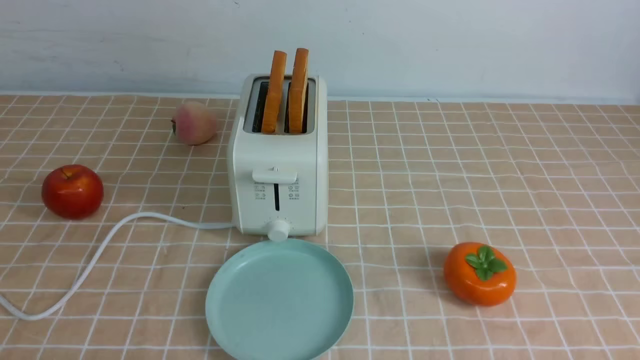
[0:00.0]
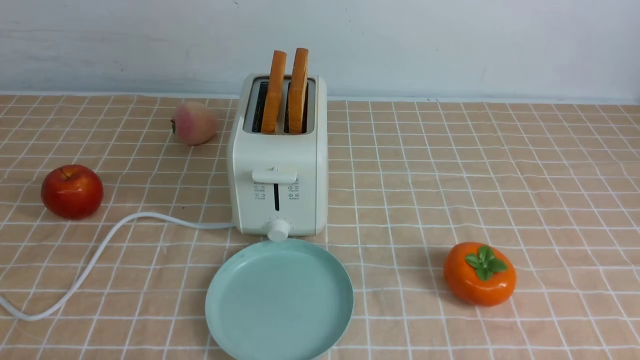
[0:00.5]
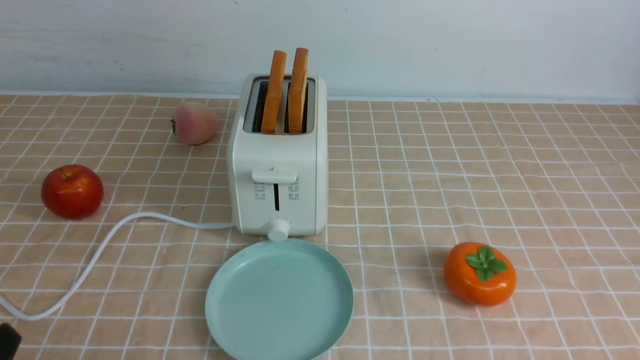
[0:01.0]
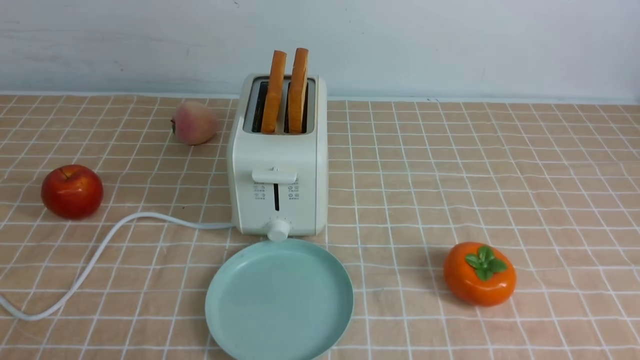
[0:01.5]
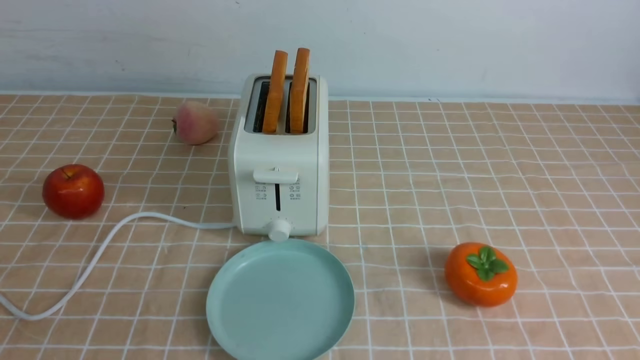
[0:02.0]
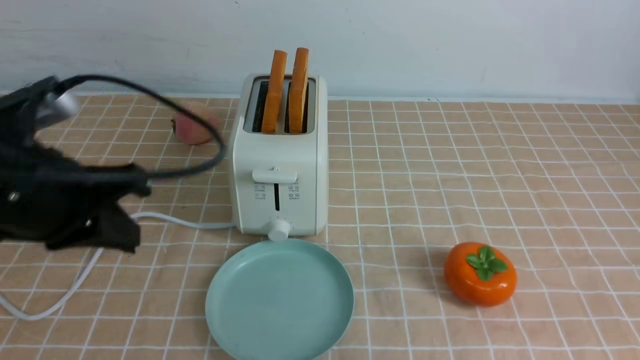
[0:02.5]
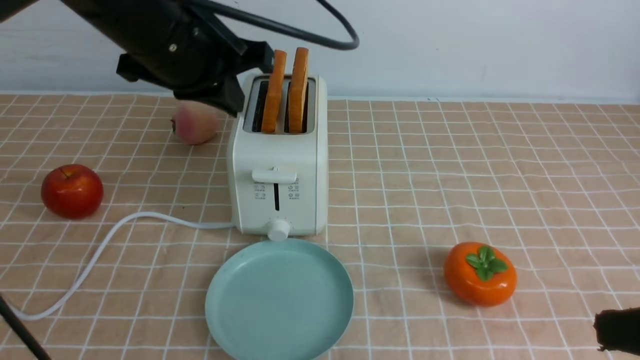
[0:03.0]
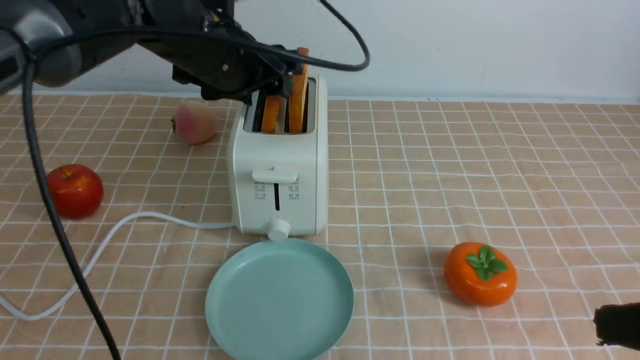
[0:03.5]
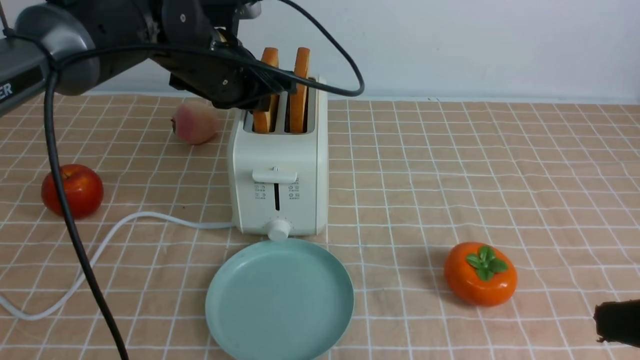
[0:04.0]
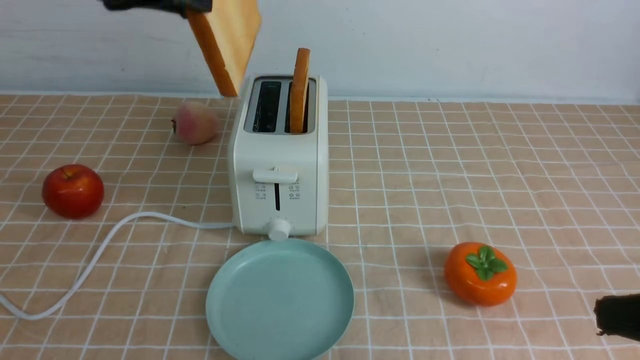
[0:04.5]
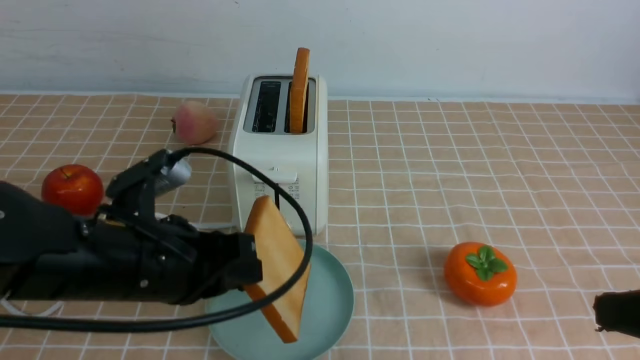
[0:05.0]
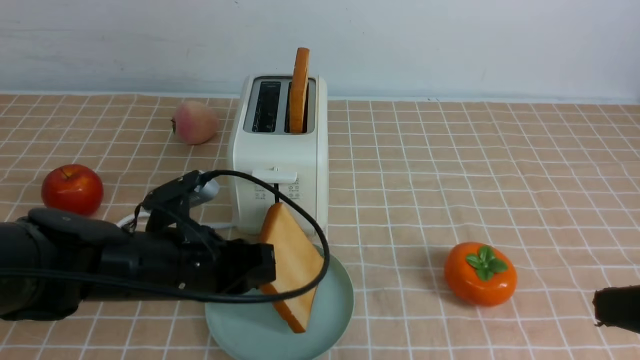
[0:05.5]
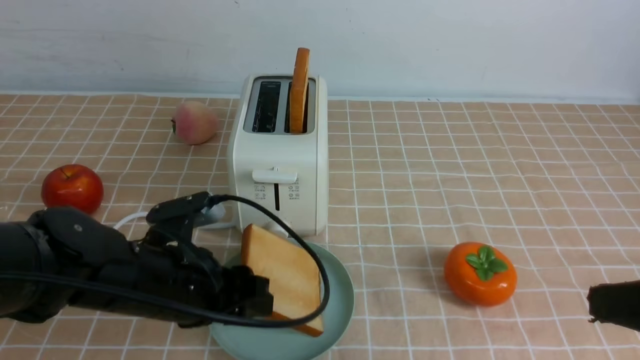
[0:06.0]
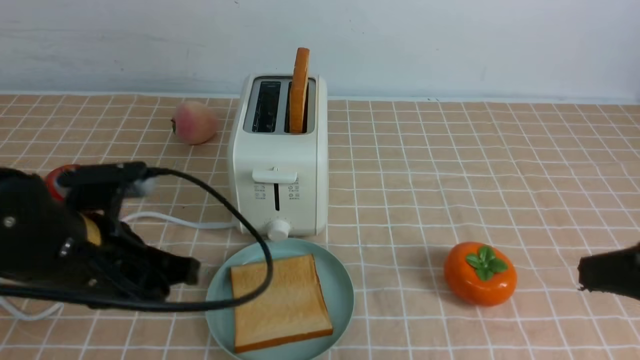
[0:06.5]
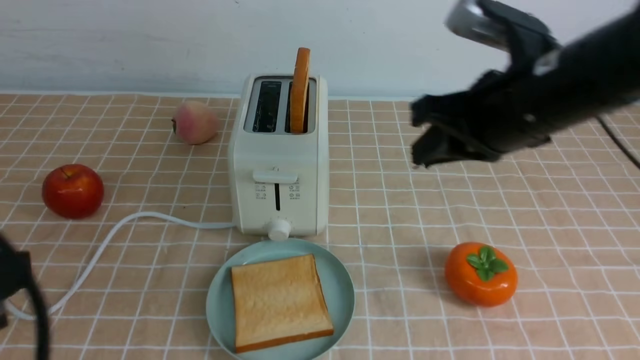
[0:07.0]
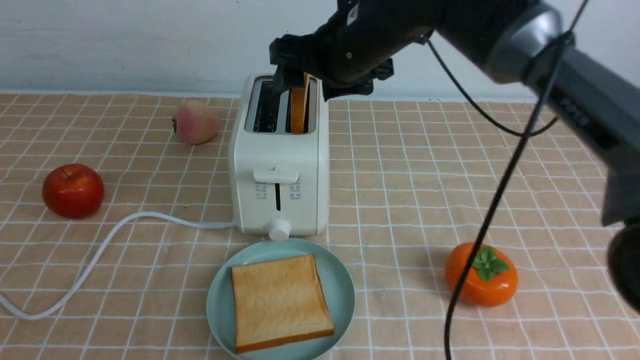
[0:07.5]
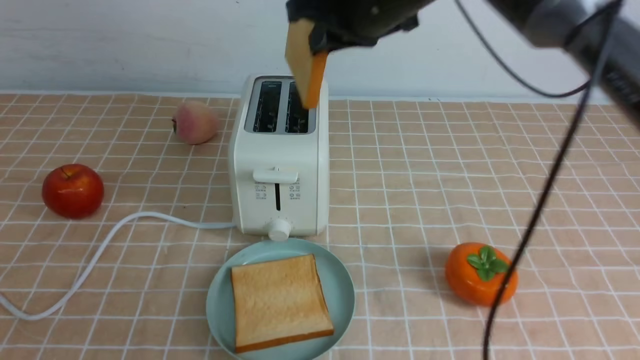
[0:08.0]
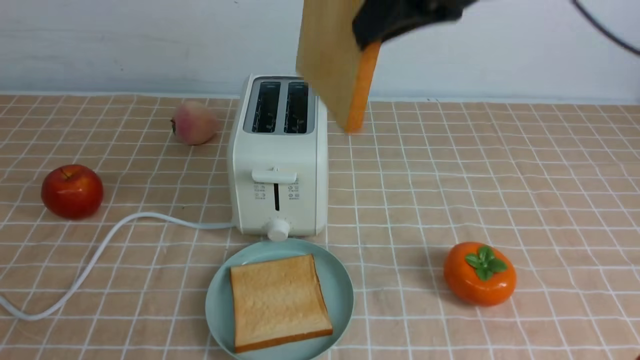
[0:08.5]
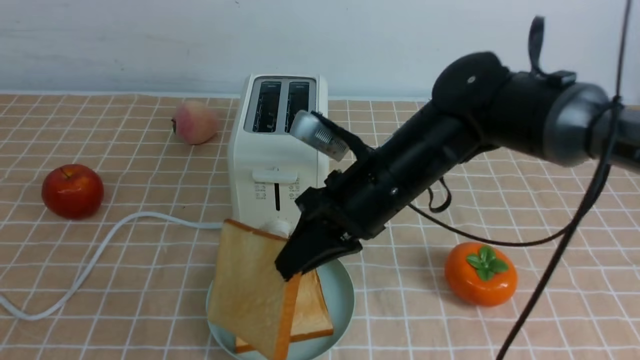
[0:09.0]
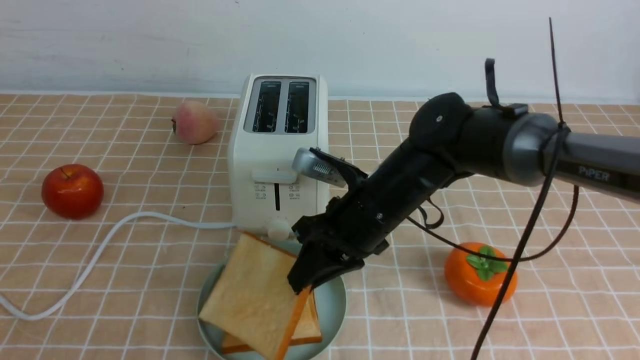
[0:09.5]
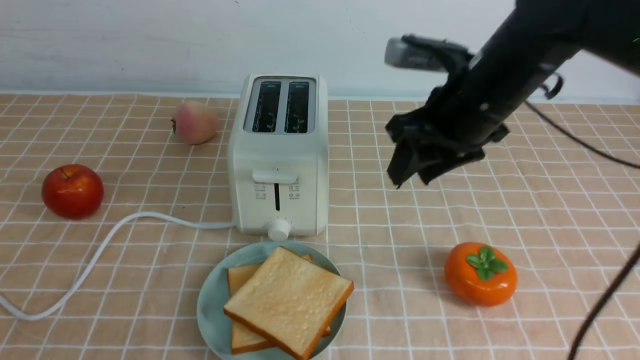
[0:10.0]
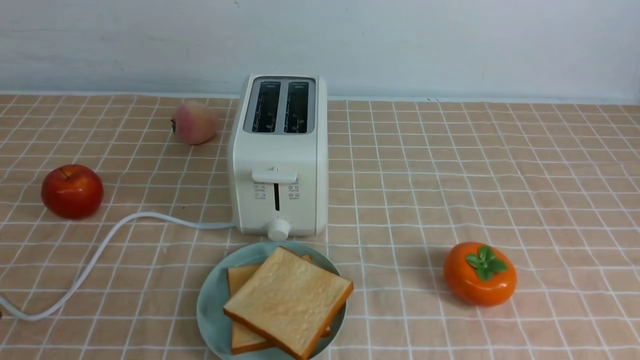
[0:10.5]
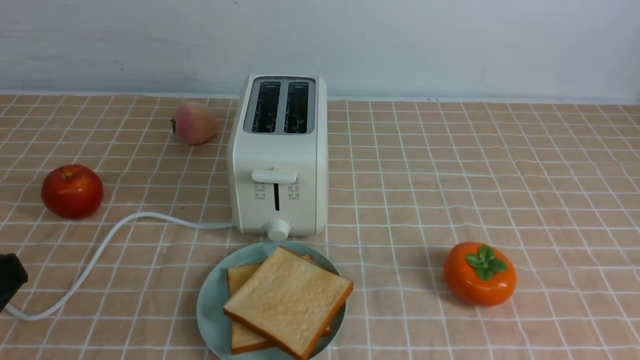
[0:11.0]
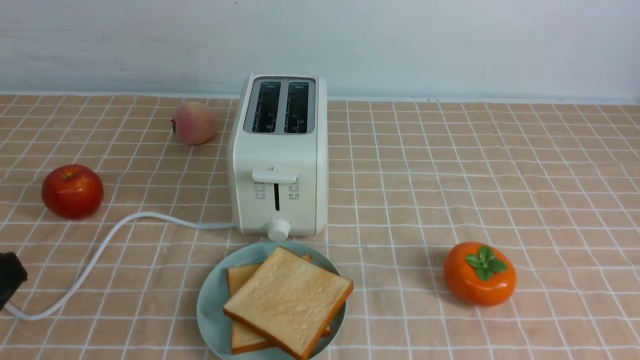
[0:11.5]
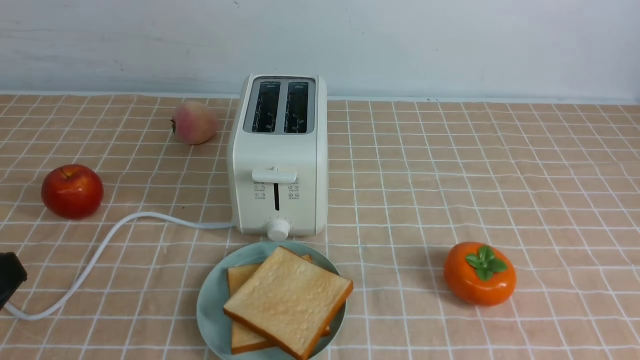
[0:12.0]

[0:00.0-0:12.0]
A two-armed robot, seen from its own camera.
Task of the whole recording: take toasted bread from bread machine on light coffee tablecloth place on plate.
Step, 0:00.0 to 0:04.0: use the left arm to take out a slice of bread.
Step, 0:04.5 to 0:06.0: use the left arm to put a slice of bread into the empty plate.
Step, 0:06.5 to 0:07.5: use the right arm to take out a slice of bread.
Step, 0:08.0 to 0:09.5: use the right arm to put a slice of bread into the plate.
0:02.0 to 0:04.0: The right gripper moves forward and upward, some 10 cm, and closes its fingers; the left gripper goes approximately 35 cm forward, and opens its fingers.
0:04.0 to 0:06.0: The left gripper travels backward and downward by roughly 20 cm, and opens its fingers.
0:06.0 to 0:08.0: The right gripper moves forward and to the left, roughly 35 cm, and opens, then closes once more. Meanwhile the left gripper goes some 30 cm backward, upward and to the left, and closes up.
0:08.0 to 0:10.0: The right gripper swings up and down, some 25 cm each way, with 2 reversals, and opens its fingers.
0:10.0 to 0:12.0: The right gripper goes about 35 cm backward and to the right, and closes its fingers.

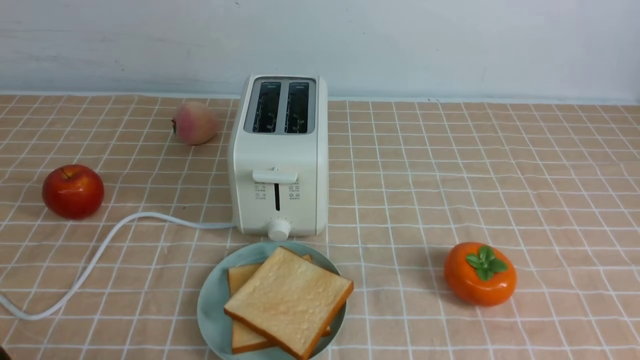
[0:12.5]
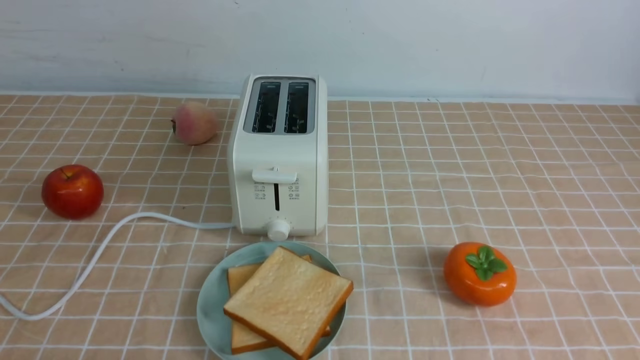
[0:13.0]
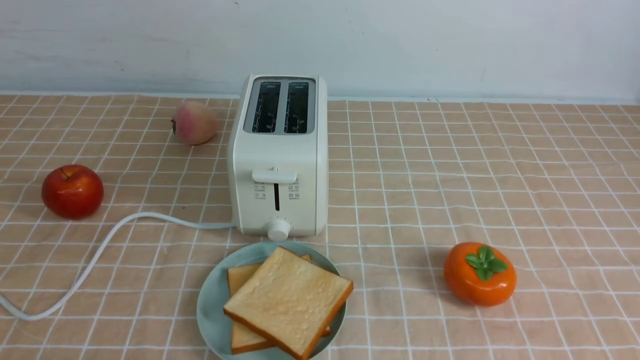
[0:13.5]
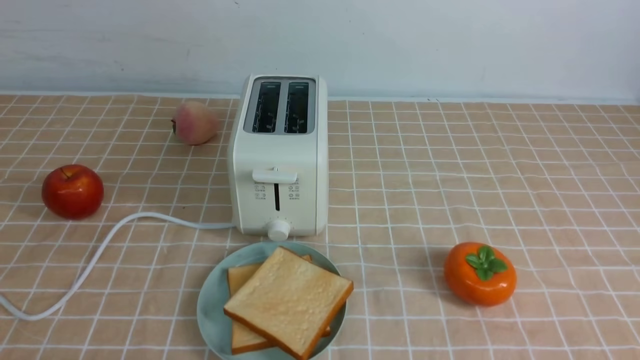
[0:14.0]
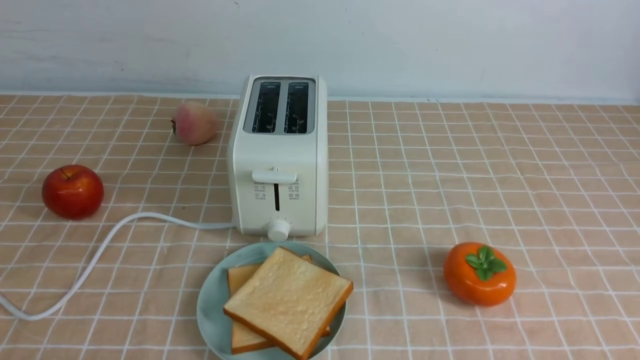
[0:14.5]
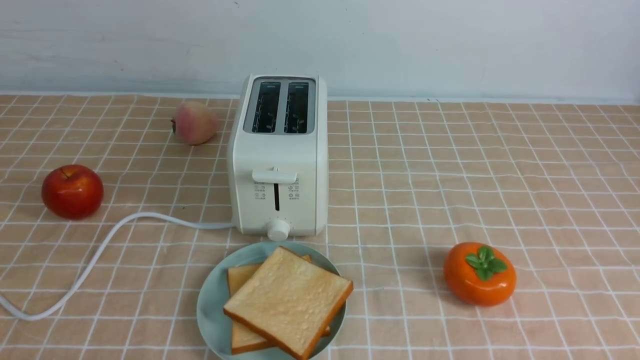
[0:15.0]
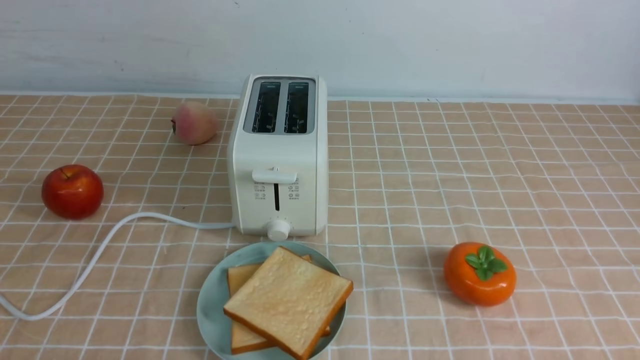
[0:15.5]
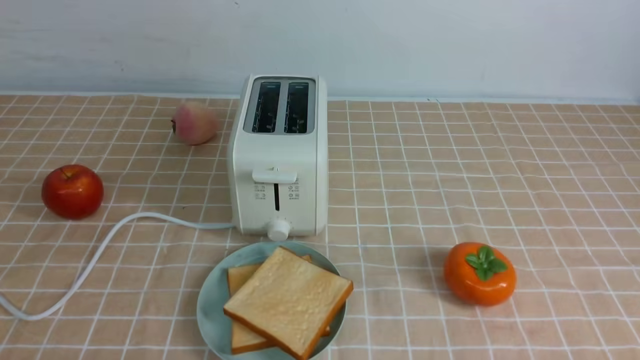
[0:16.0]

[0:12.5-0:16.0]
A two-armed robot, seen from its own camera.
Task of the whole recording: take toasted bread from bread machine on light coffee tablecloth place on plate.
0:14.5 to 0:16.0: The two grippers keep their place.

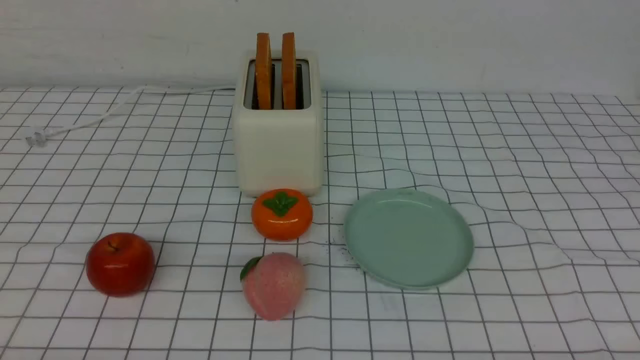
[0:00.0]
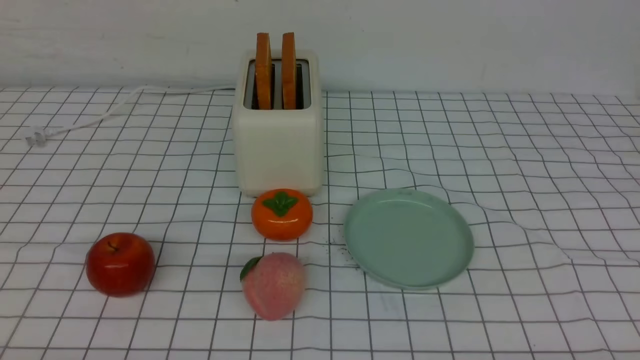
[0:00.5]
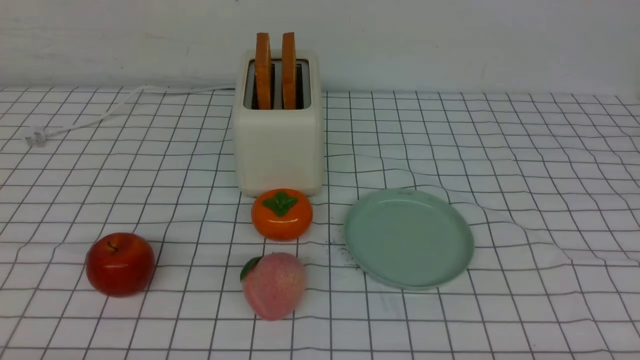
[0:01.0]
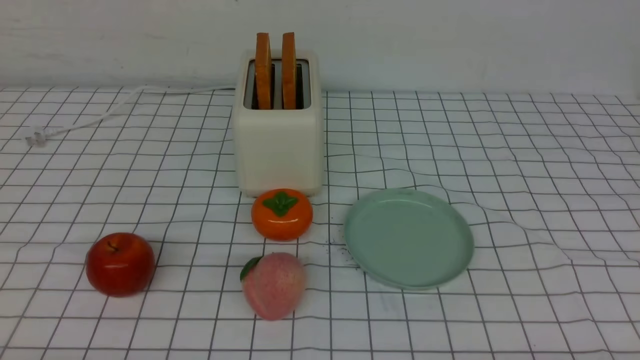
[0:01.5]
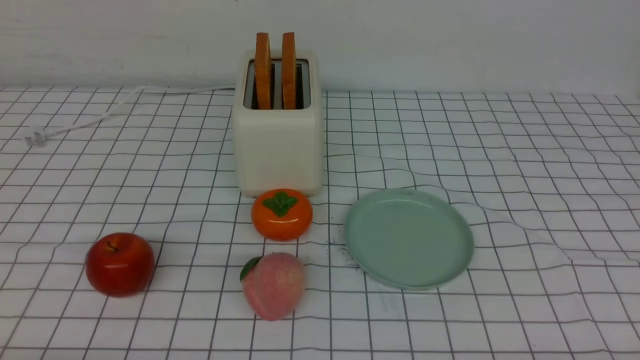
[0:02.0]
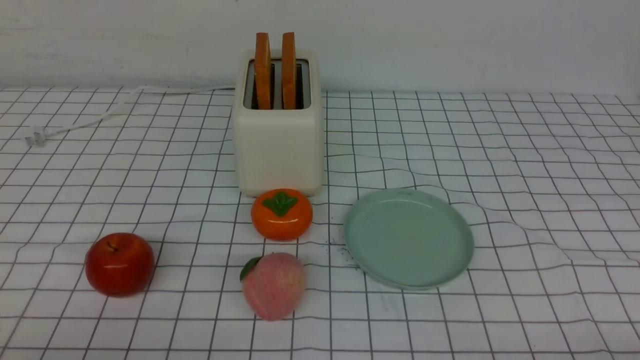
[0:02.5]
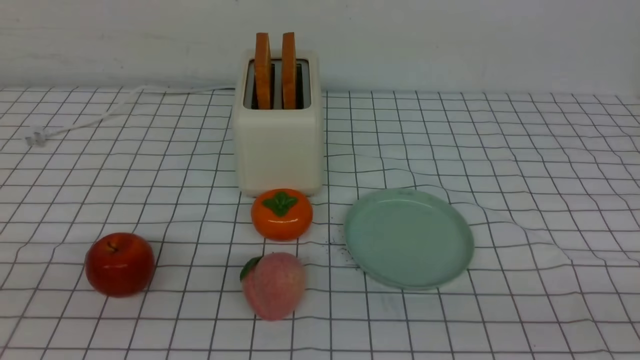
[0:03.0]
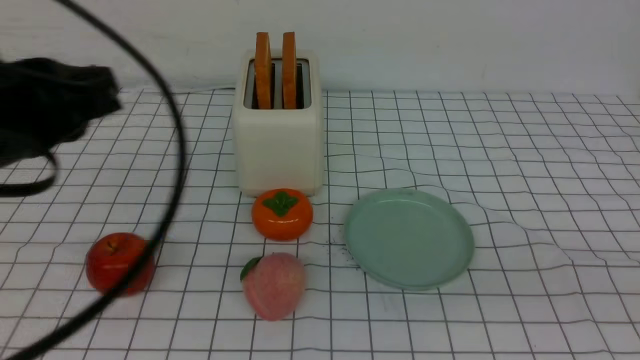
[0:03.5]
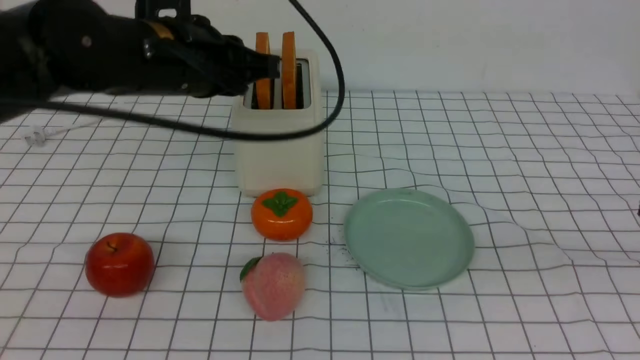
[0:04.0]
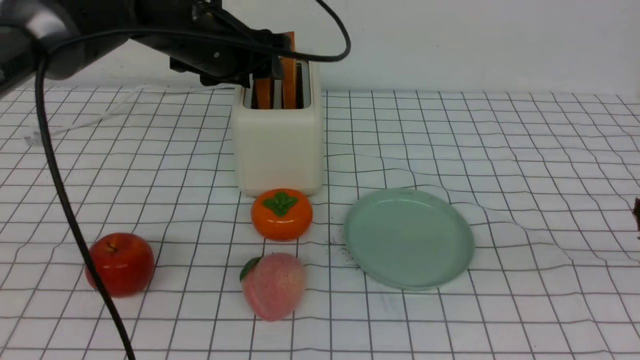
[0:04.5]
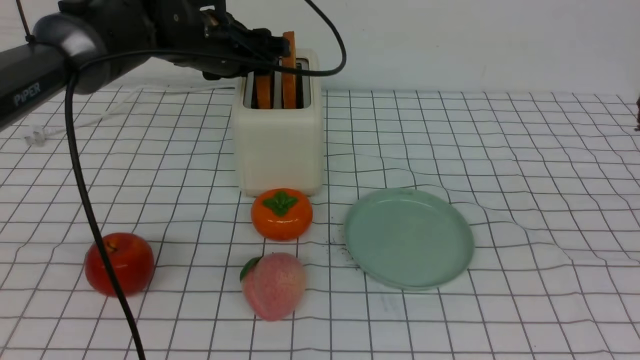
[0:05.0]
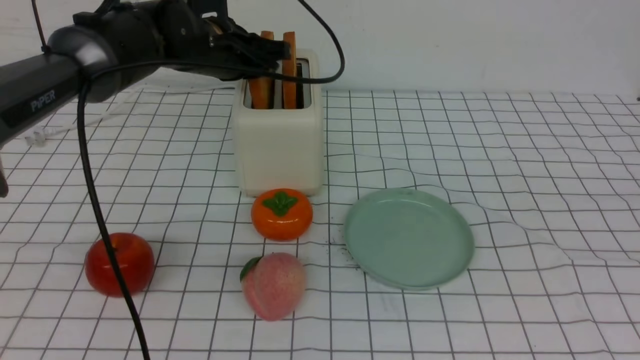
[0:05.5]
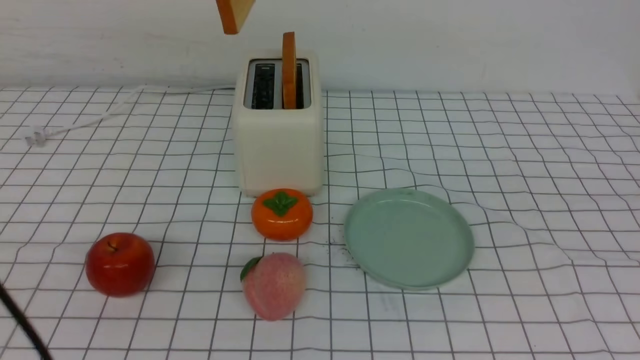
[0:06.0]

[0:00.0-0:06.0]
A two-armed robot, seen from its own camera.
Task of the whole recording: take toasted bread from bread machine on white checkered table place on plate.
Step, 0:00.0 to 0:05.5: use the left arm to take out a slice of bread.
0:02.0 to 0:04.0: The right gripper goes about 25 cm upward, and closes, while the left gripper travels forward, upward and to the right by approximately 35 cm, and closes, then opens again.
0:04.0 to 0:06.0: The left gripper is displaced upward by some 10 cm, and opens and closes again.
